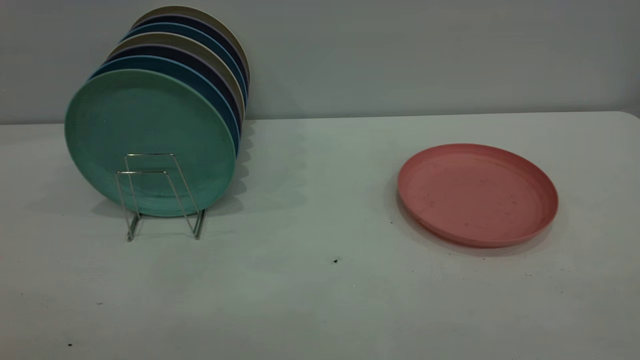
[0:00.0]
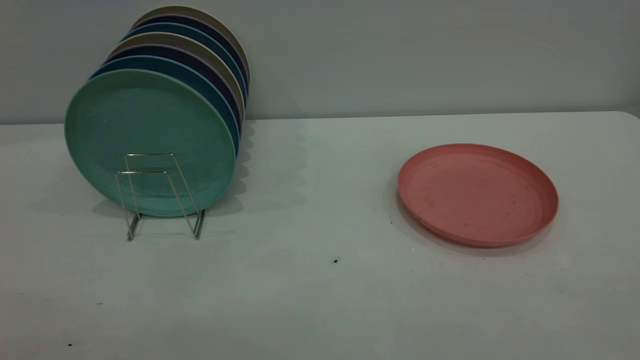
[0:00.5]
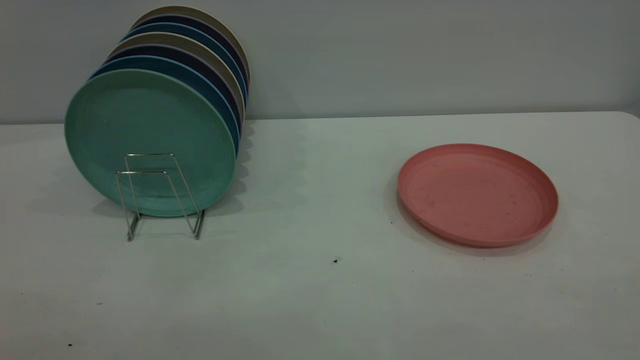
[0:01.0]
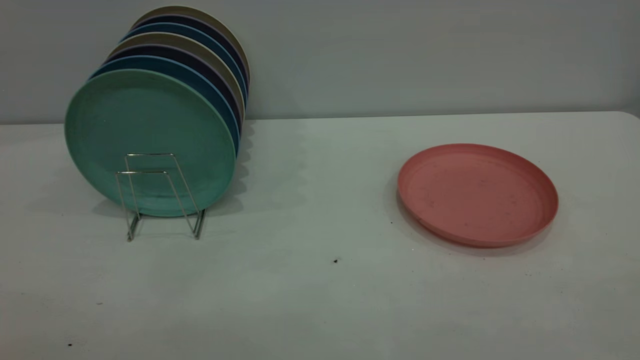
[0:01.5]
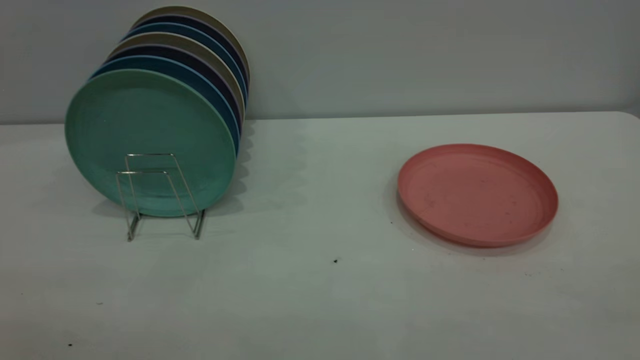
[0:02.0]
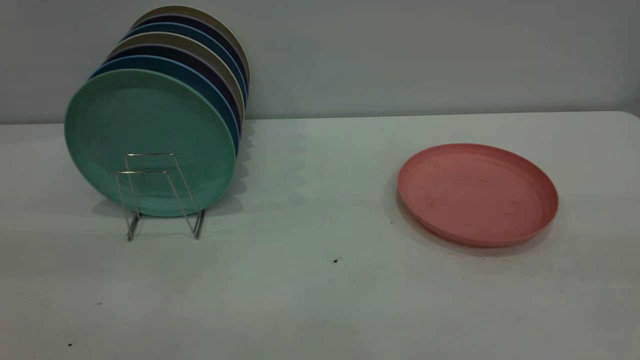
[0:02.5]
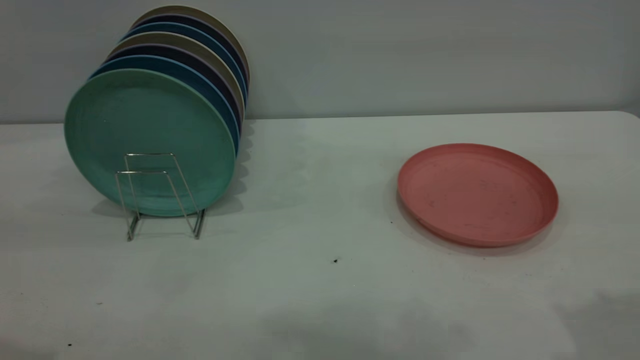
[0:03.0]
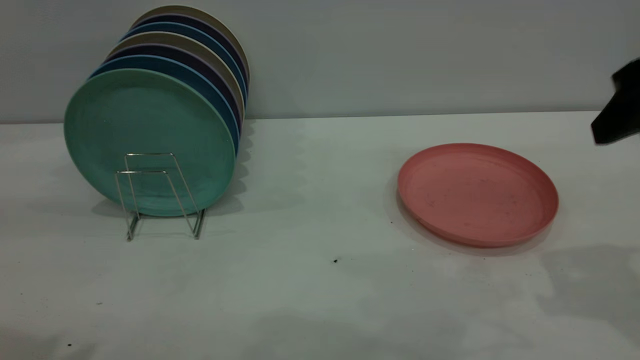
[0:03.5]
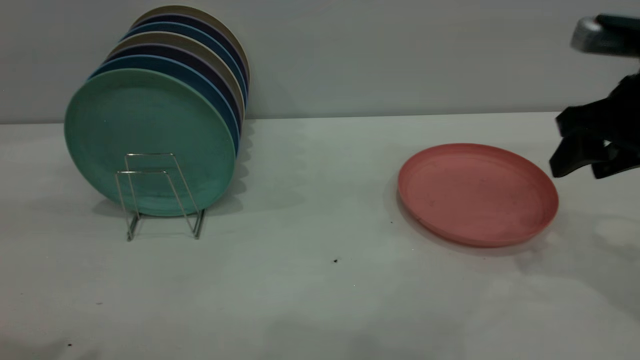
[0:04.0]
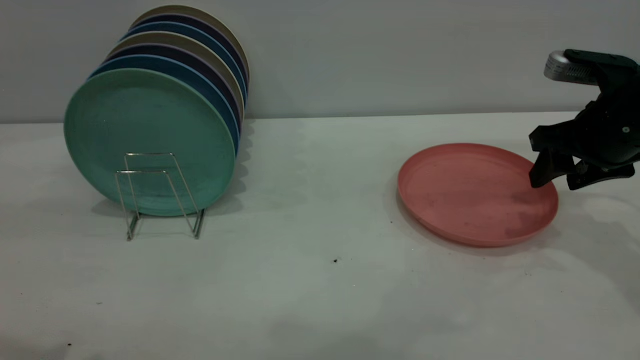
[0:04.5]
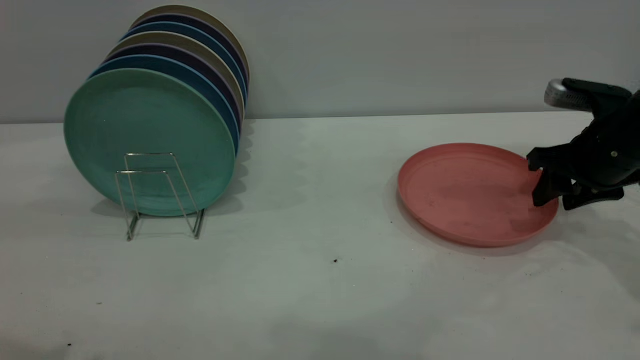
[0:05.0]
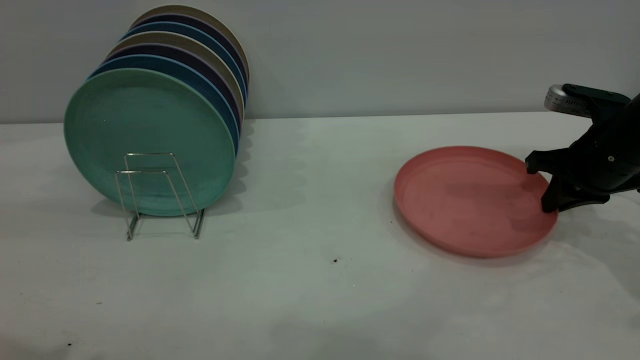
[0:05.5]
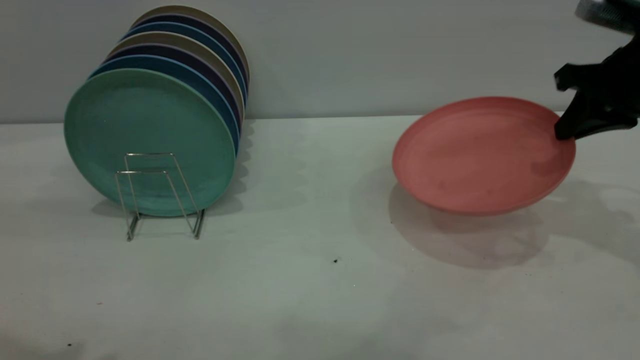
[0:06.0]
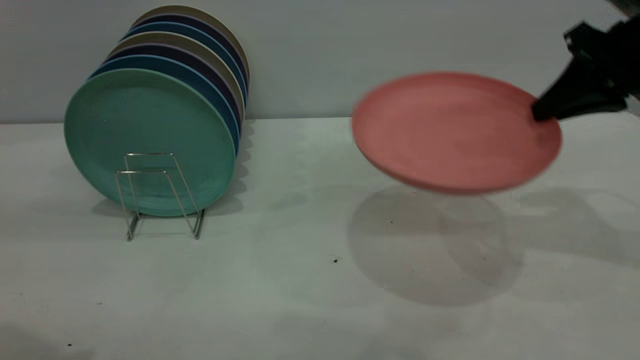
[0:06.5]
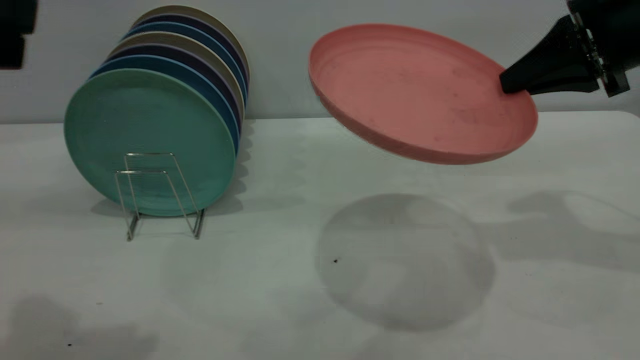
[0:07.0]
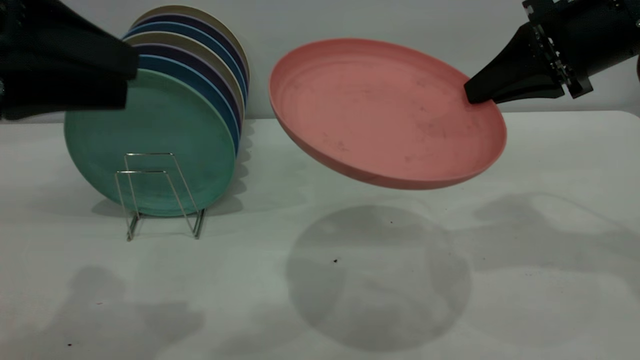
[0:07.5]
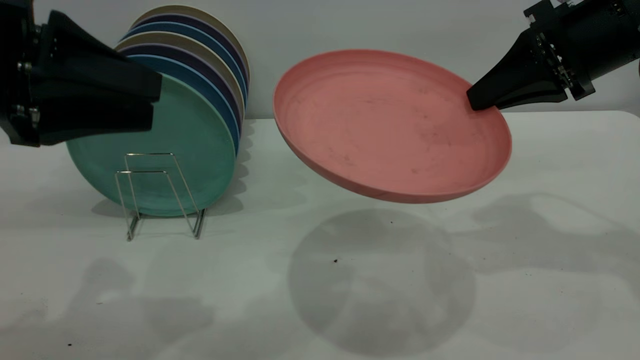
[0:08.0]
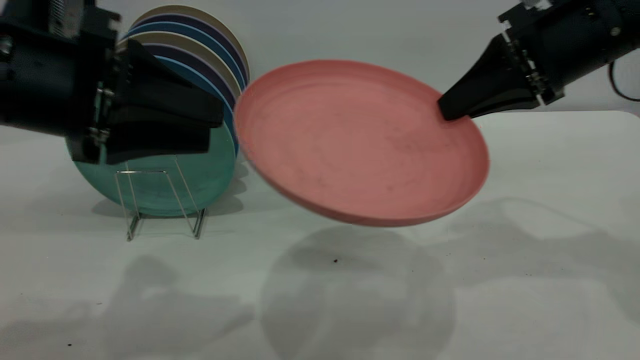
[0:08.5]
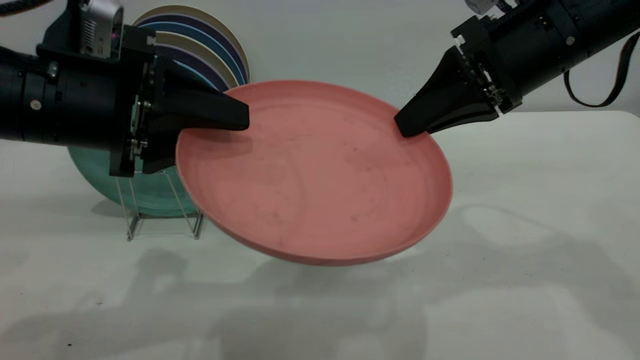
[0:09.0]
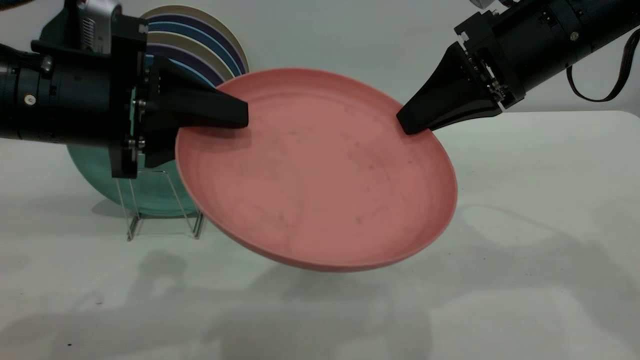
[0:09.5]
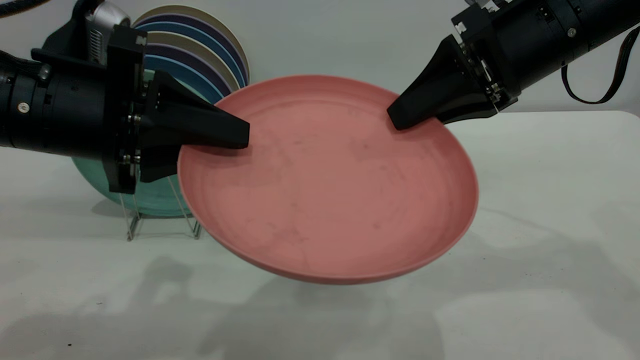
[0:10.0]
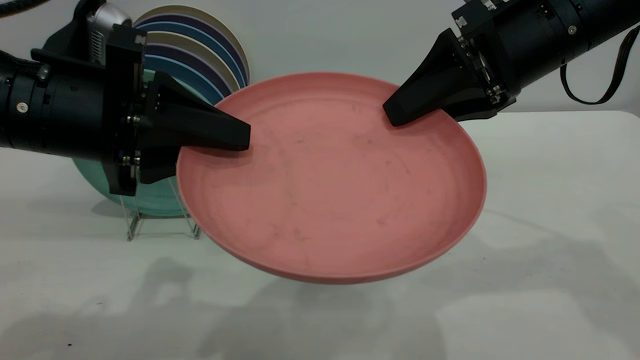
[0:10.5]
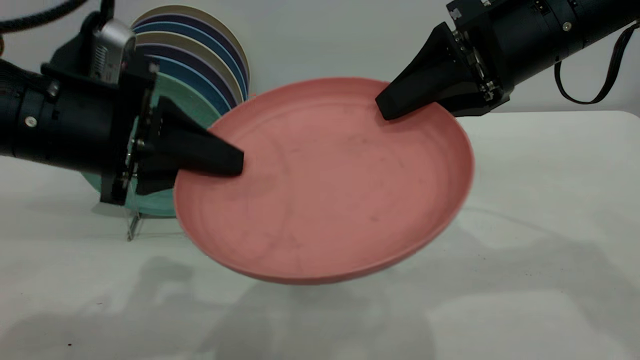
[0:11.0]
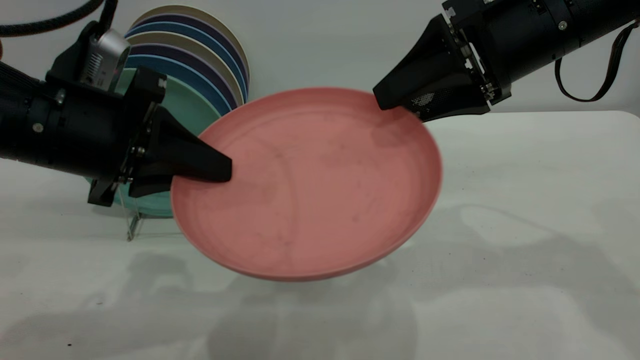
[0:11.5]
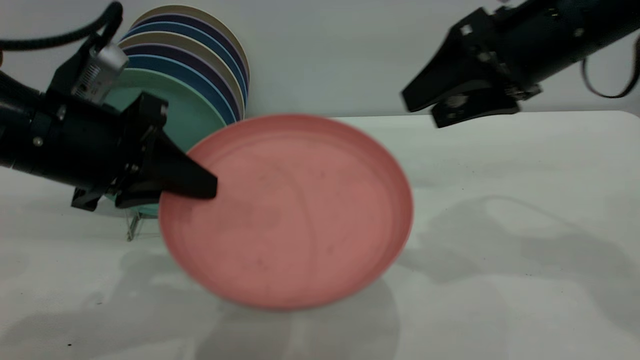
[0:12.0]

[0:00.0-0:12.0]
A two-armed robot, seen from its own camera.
Task of the whole recording: the right gripper grasp the pink plate, the right gripper pass the pink plate to the left gripper, and the left gripper place the pink plate on the plate rack.
Step, 0:00.0 to 0:05.5: Pick up the plate with the right gripper.
Step, 0:06.5 to 0:11.5: Pass the plate from the right gripper to the left gripper.
0:02.0 to 0:04.0: The right gripper travels forward and downward by some 40 cm.
0:04.0 to 0:06.0: The right gripper heads forward, covering some 5 cm, moves some 10 cm downward and comes back, and closes up.
0:06.0 to 0:08.0: The left gripper goes approximately 15 cm downward and forward. The right gripper heads to the left, covering some 5 cm.
0:08.0 to 0:10.0: The left gripper moves to the right, about 5 cm, and closes its fingers, while the right gripper goes roughly 5 cm to the left.
0:10.0 to 0:12.0: The right gripper opens.

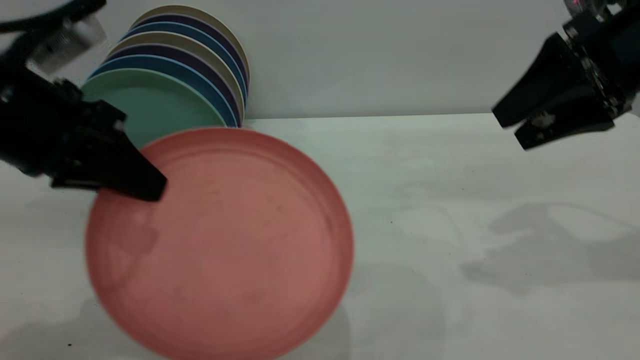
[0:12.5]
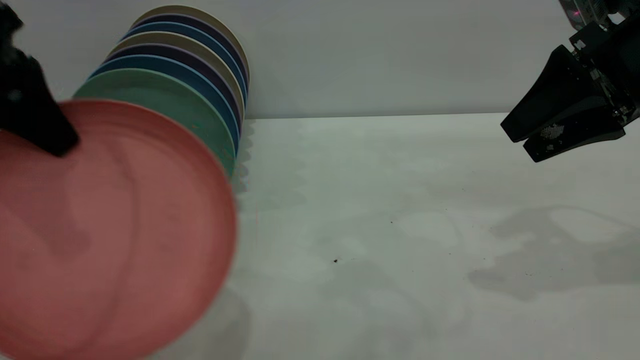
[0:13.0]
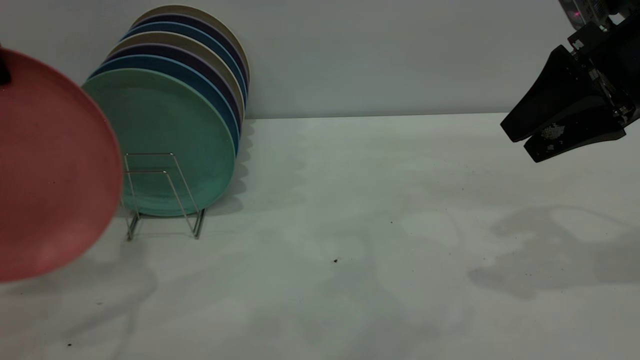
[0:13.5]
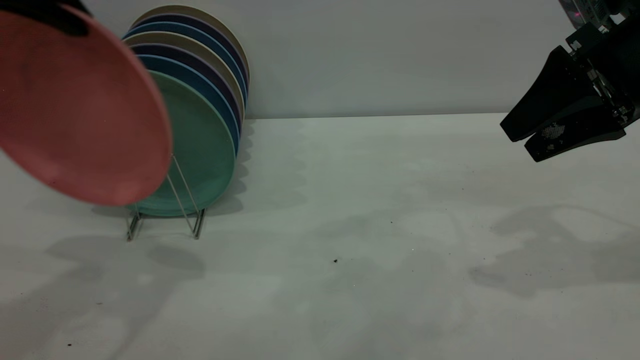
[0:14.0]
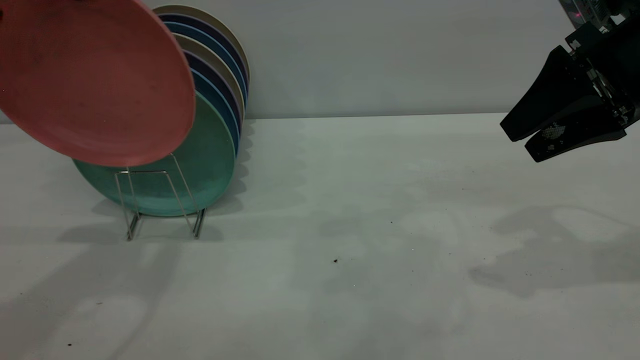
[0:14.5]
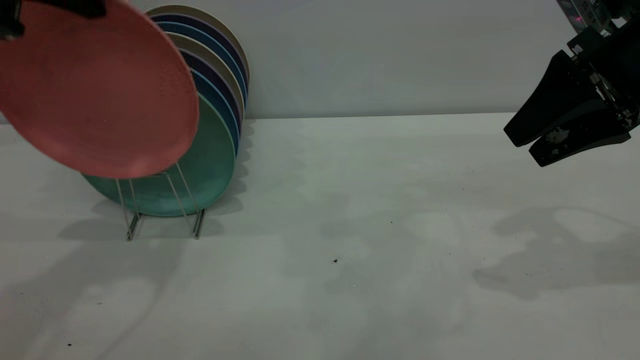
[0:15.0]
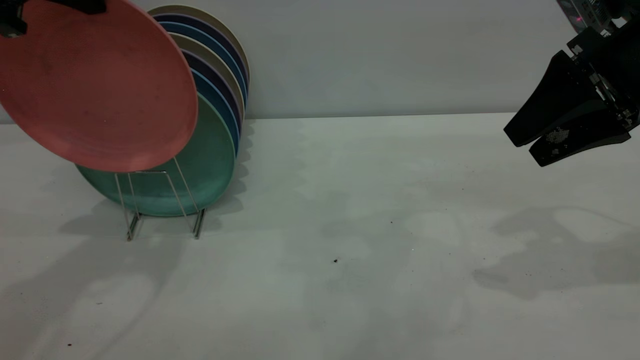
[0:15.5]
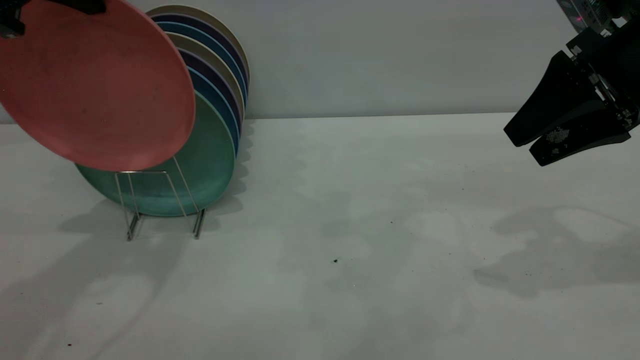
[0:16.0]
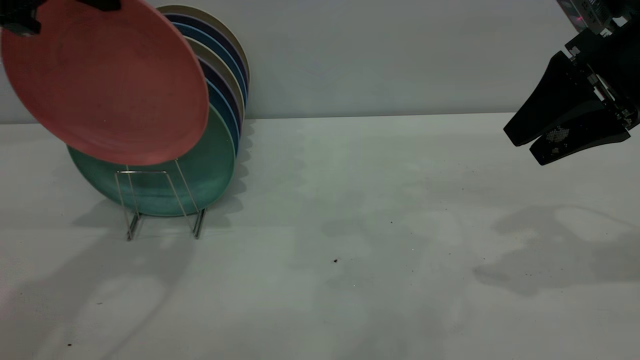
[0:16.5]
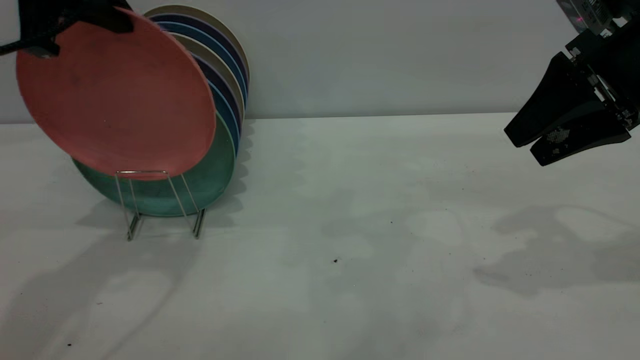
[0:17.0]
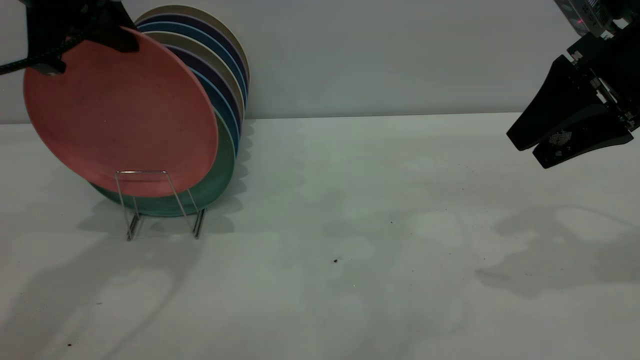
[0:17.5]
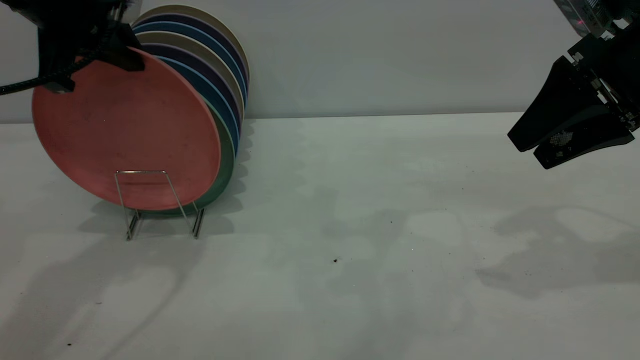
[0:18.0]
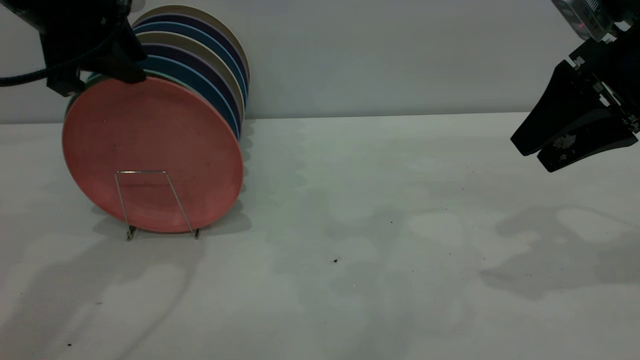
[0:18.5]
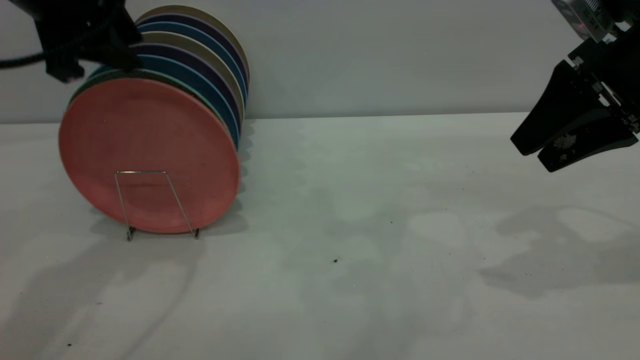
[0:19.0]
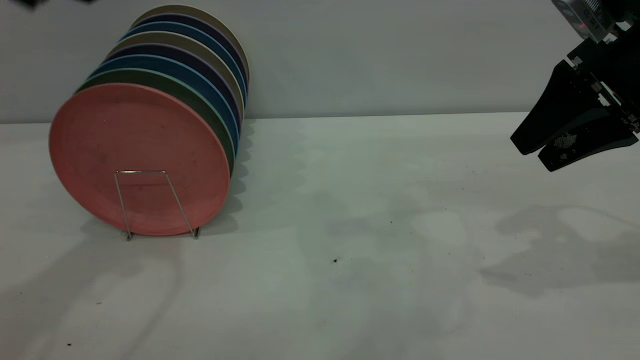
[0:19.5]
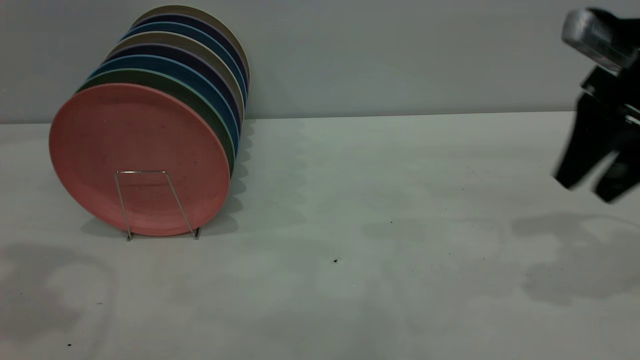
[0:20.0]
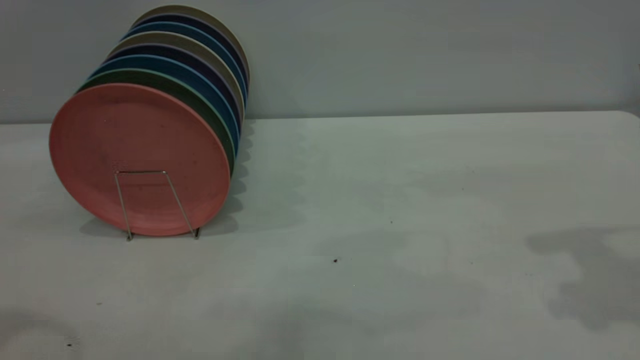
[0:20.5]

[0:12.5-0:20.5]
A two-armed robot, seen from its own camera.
Task of the whole recording: the right gripper grasp the pink plate, the right gripper pass the pink plate to the left gripper, and the left gripper place the pink plate on the plate rack.
Step, 0:12.5 to 0:19.0: Place the plate on the shelf.
0:12.5 to 0:14.5: The left gripper travels upward and forward by some 15 cm.
0:14.5 to 0:16.5: The grippers stay close to where they were, moving slightly.
0:16.5 to 0:18.5: The left gripper heads downward, covering roughly 5 cm, and opens.
0:18.5 to 0:20.5: The right gripper goes roughly 10 cm upward and backward. Meanwhile the left gripper is displaced backward and to the left by some 20 cm.
